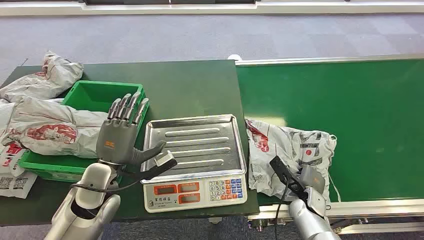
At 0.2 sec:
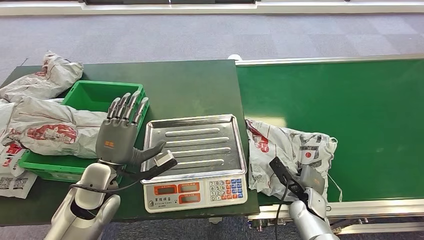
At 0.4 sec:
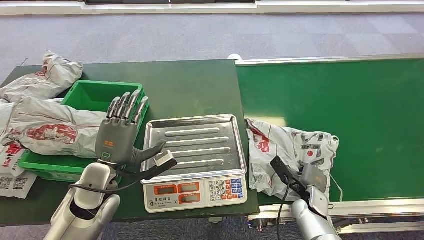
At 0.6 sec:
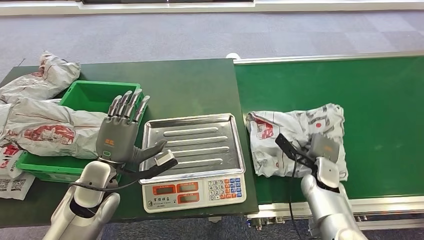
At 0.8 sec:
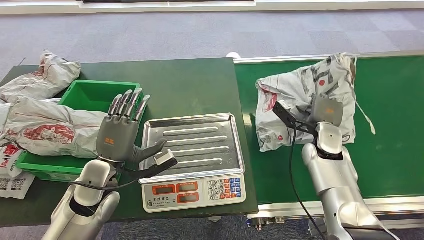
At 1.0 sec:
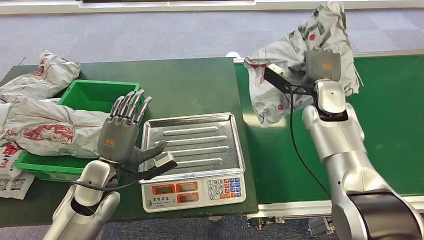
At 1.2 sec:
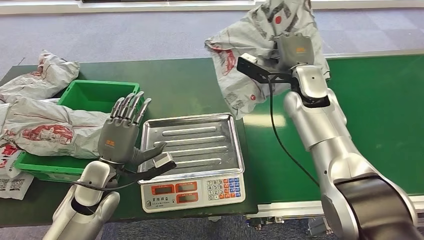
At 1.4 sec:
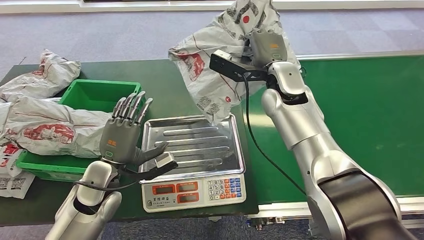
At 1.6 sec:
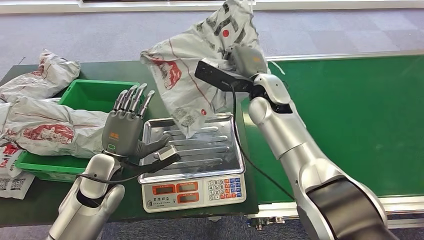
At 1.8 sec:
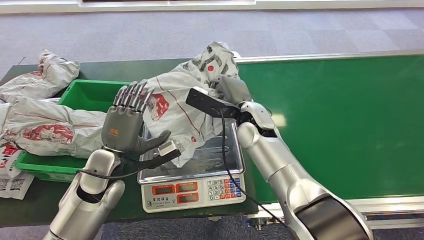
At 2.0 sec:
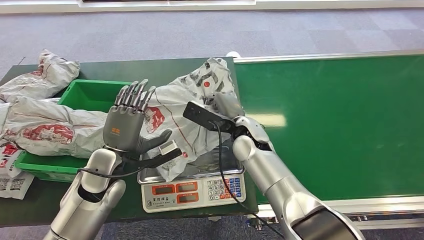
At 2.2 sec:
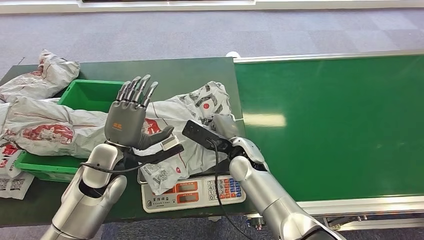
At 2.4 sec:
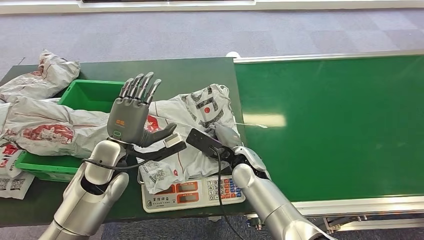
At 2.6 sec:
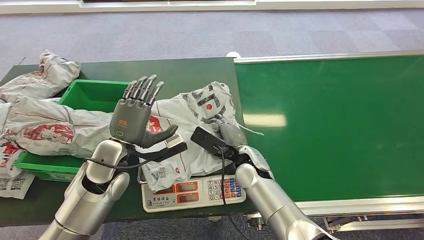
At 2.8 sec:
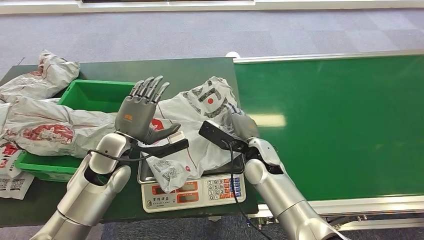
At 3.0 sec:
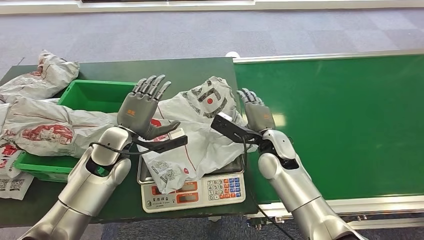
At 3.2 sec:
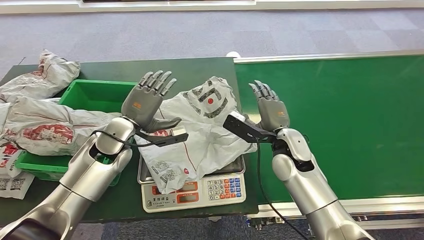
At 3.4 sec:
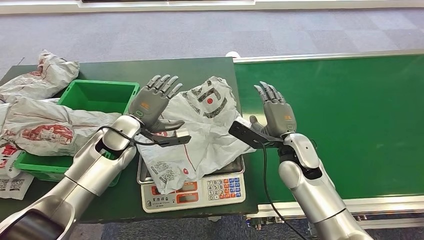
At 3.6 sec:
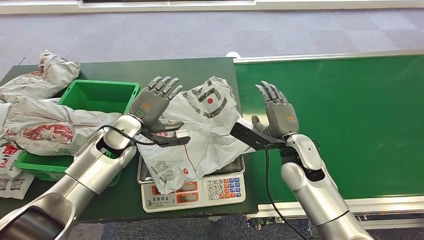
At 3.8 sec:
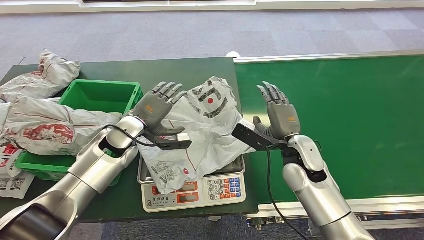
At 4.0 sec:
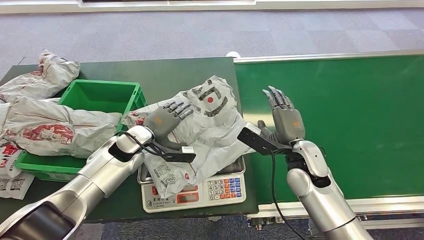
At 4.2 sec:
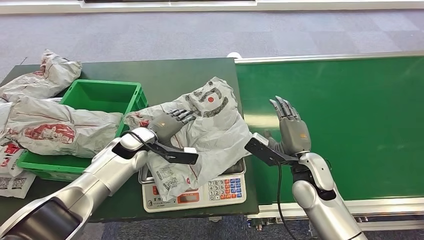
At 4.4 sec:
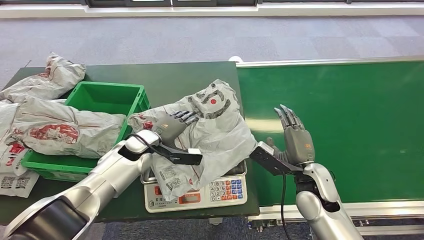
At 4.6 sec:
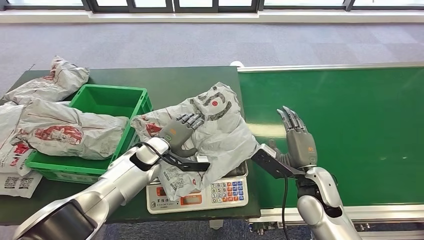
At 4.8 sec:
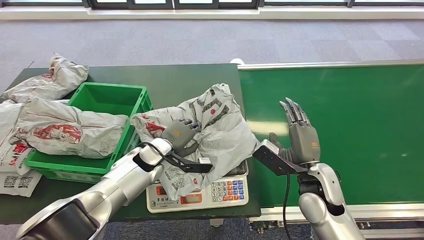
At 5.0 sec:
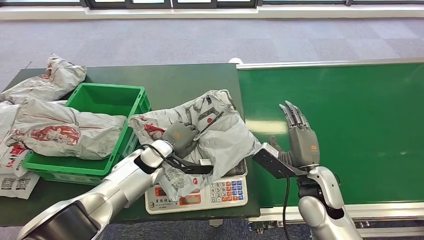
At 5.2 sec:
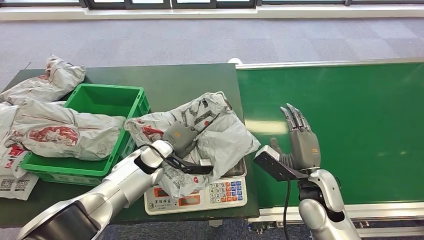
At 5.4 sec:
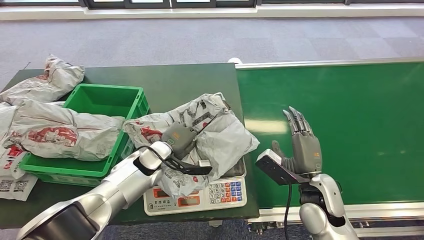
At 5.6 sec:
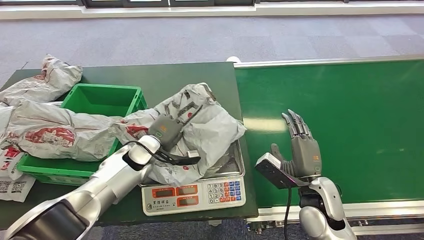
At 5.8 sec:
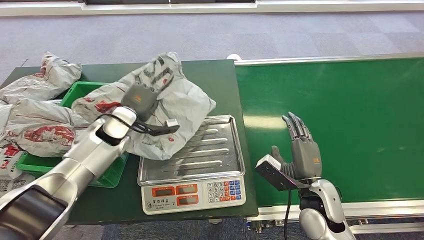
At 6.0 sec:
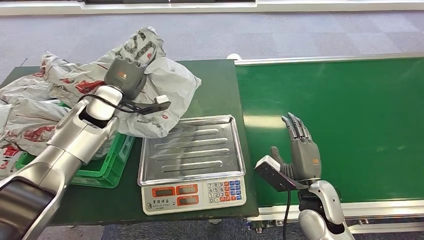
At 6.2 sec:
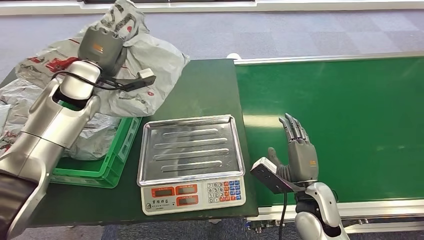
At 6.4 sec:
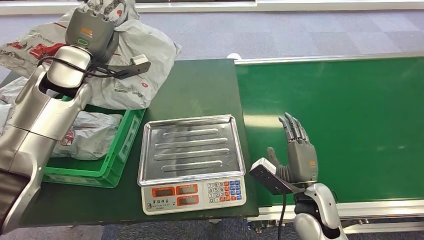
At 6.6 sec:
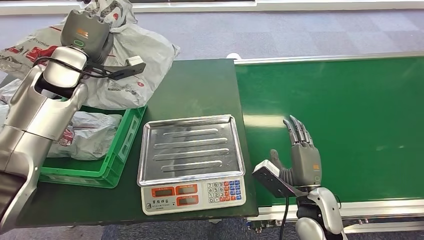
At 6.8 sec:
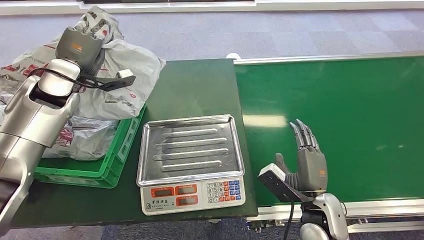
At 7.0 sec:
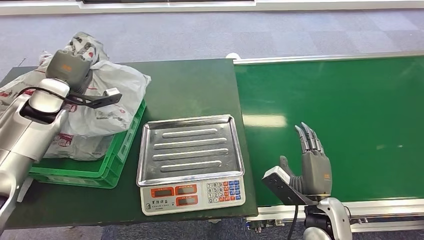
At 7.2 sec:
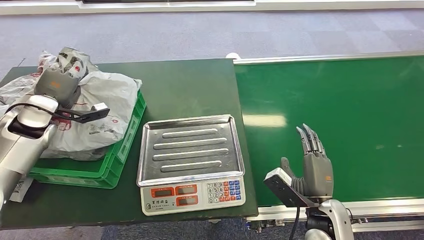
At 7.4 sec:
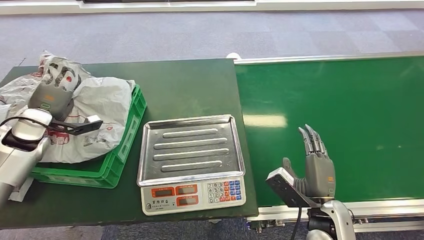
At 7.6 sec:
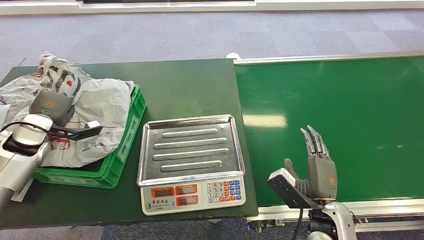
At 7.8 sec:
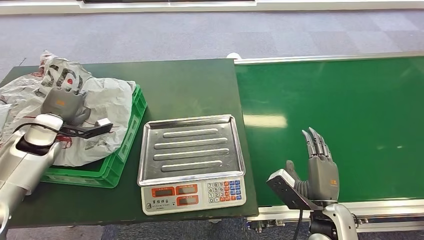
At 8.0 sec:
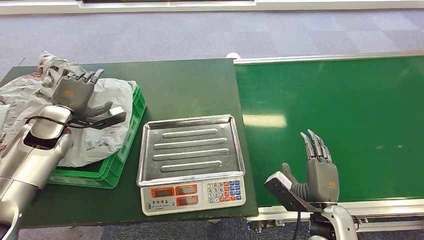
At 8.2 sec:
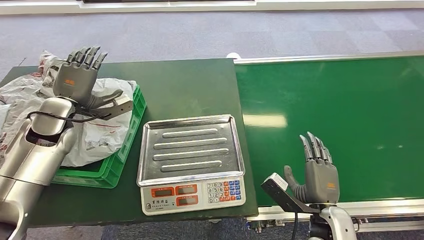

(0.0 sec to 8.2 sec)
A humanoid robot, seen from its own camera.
Step, 0.0 sec - 1.2 sec: Pick up the package from the conveyor belt.
Step, 1.6 sec - 3.4 sec: Place the package onto the inbound machine.
Step, 3.6 sec - 6.4 sec: Pick up the package from the inbound machine.
Step, 6.6 sec - 8.2 sec: Place the package into the parcel locker.

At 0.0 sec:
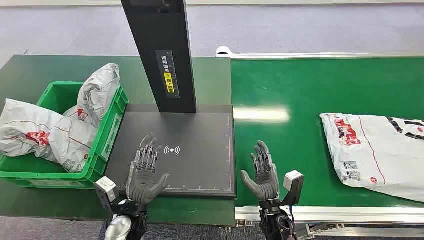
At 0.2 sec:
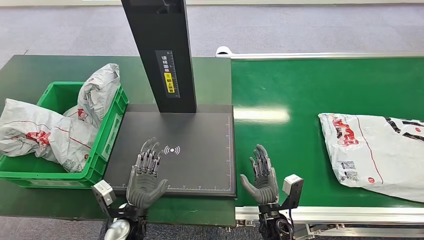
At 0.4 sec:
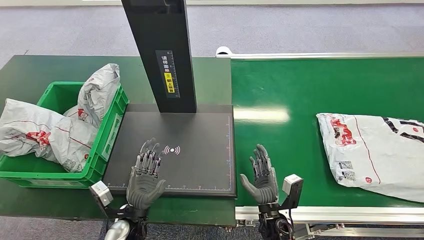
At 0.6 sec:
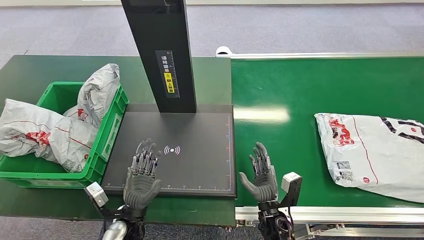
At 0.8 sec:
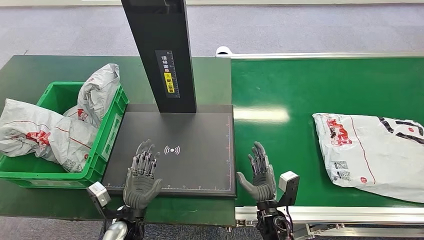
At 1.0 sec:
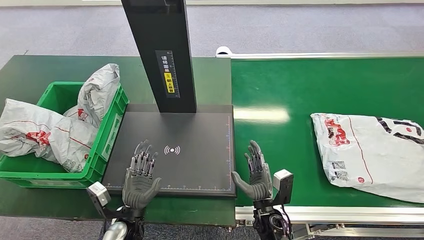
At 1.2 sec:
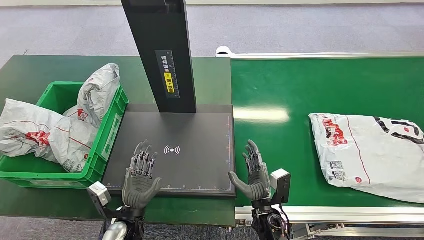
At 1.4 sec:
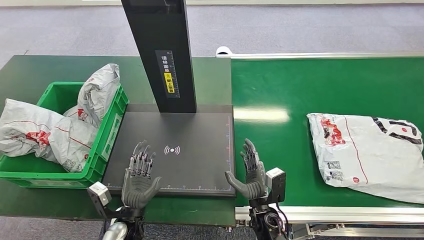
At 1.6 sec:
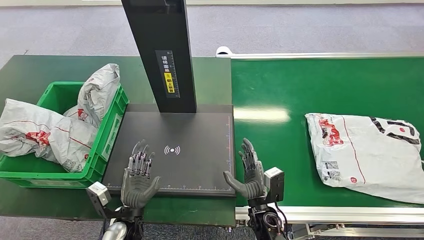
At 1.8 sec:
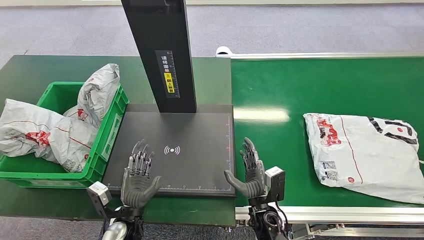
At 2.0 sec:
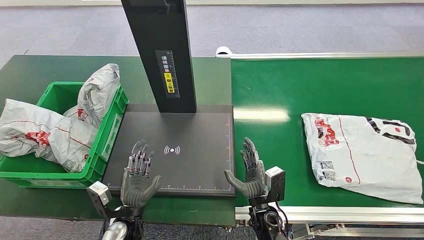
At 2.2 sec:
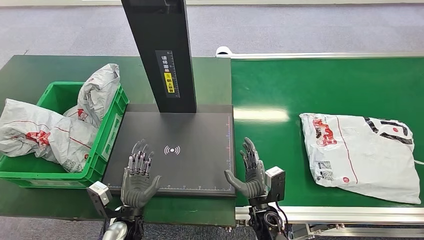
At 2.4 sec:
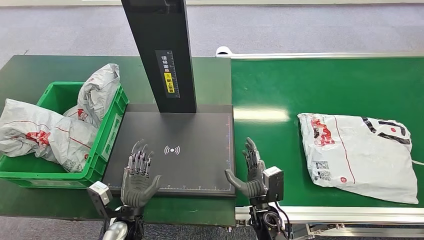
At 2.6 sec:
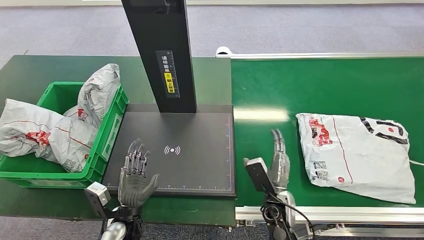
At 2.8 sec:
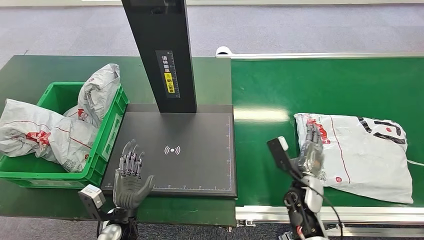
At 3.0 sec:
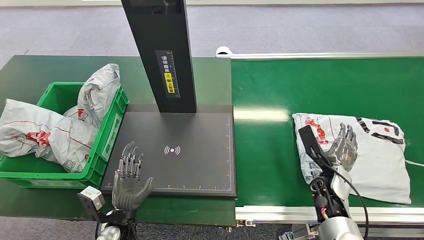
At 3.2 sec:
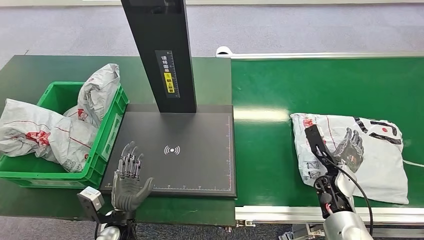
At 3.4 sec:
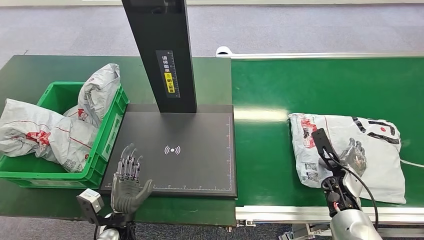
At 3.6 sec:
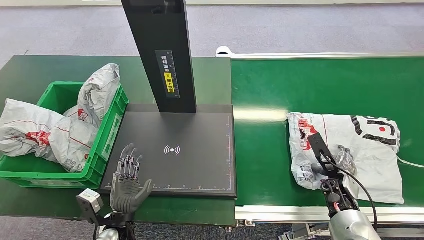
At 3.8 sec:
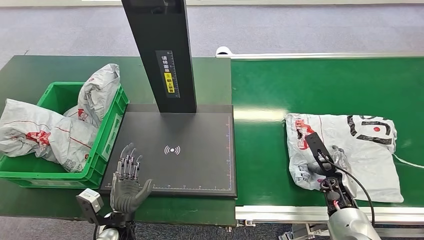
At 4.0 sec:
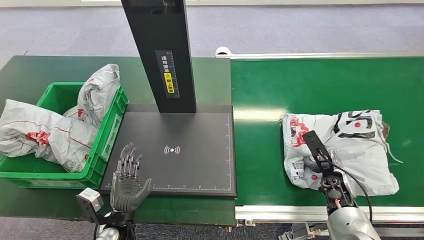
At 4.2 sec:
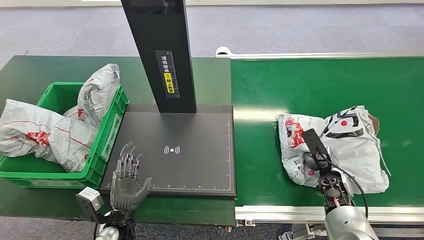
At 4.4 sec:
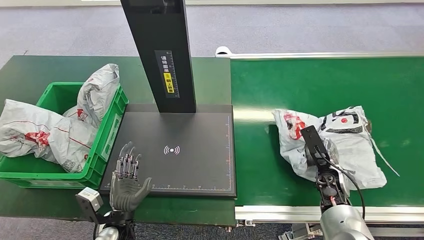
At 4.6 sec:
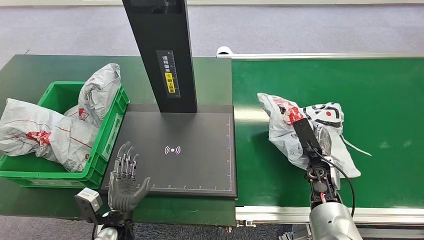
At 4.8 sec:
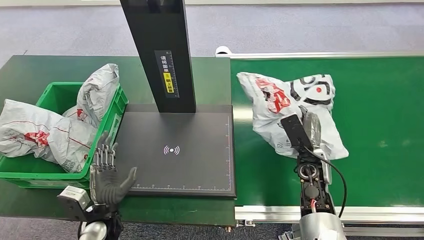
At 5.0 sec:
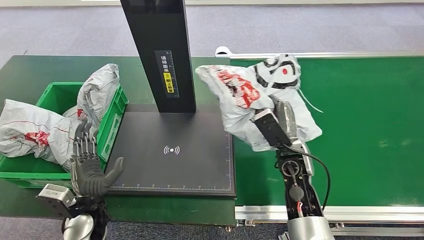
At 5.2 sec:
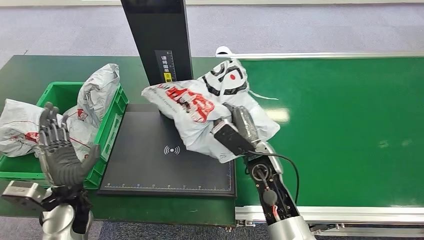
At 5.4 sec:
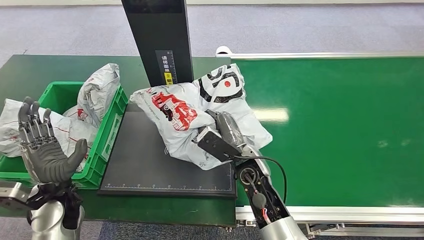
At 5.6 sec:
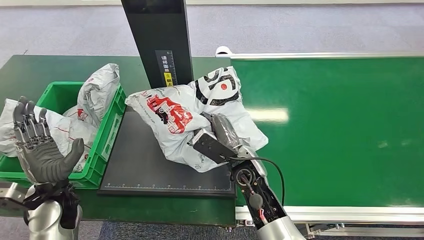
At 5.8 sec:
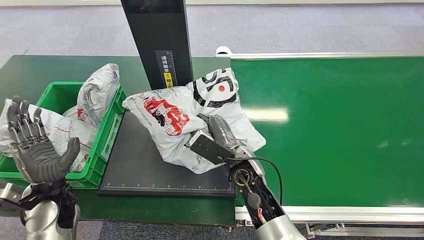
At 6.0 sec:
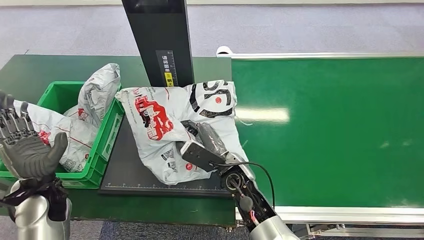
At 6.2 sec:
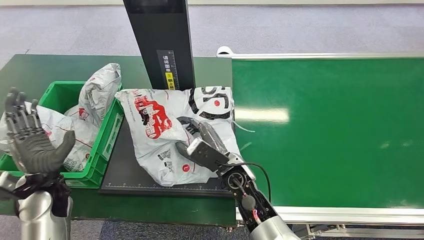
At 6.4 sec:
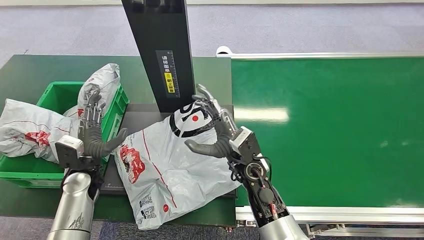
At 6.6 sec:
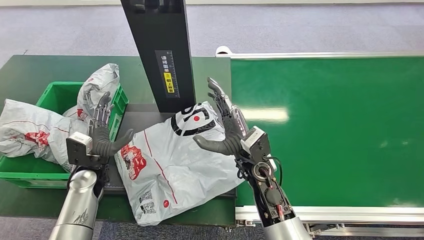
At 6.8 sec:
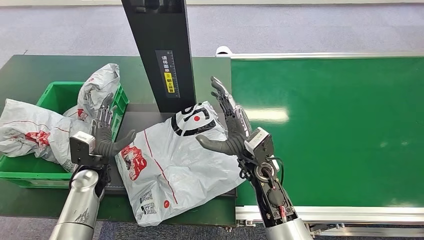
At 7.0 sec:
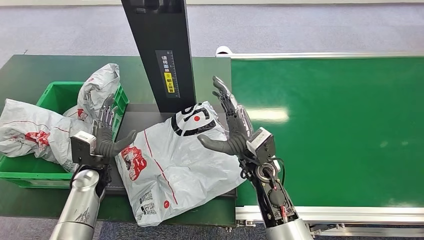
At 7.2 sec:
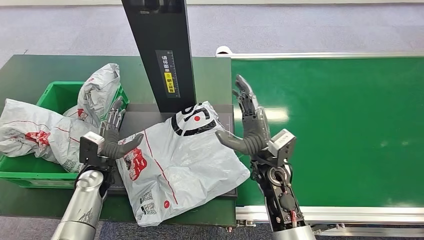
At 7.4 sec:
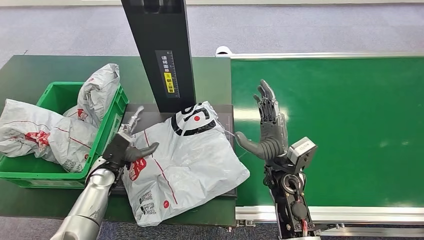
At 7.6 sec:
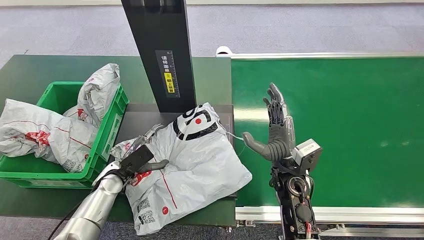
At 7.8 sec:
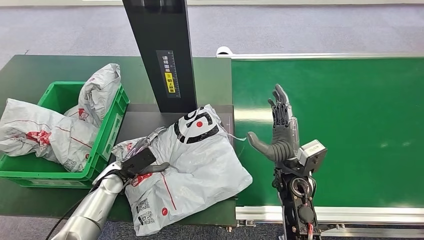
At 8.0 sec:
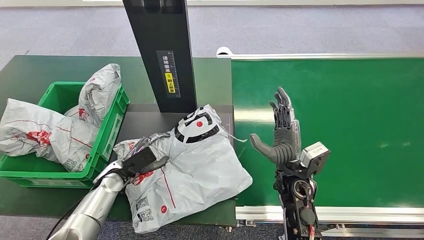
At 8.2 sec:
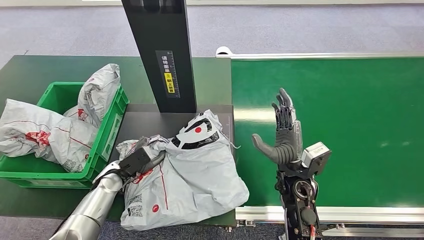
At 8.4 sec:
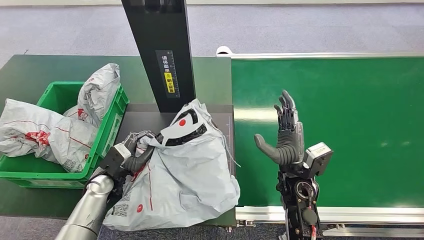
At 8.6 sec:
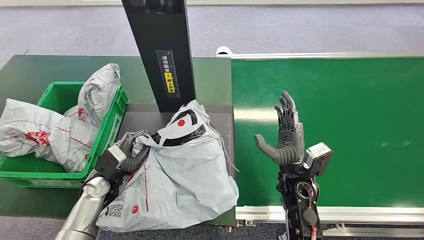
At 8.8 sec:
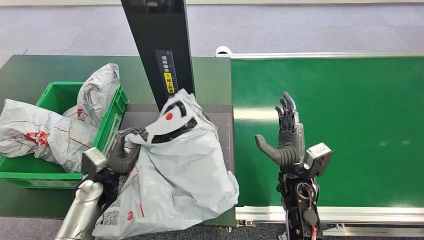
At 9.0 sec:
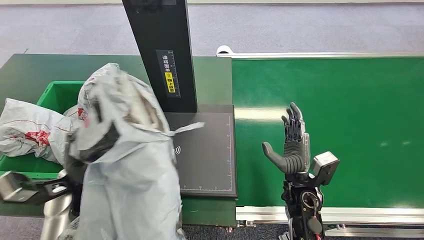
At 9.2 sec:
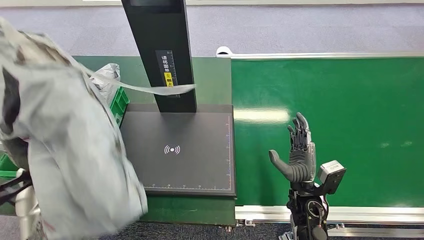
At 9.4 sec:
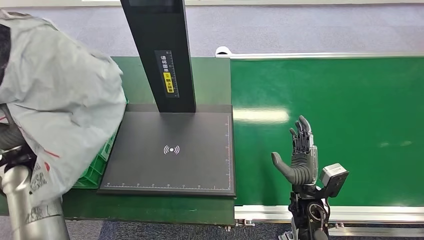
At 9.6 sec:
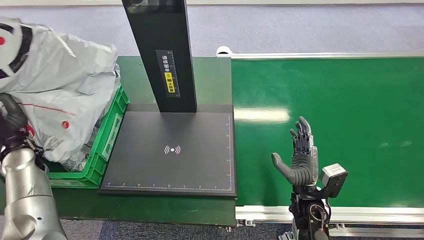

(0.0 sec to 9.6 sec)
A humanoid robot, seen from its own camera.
Step, 0.0 sec - 4.8 sec: Pick up the package from the conveyor belt.
Step, 5.0 sec - 7.0 sec: Place the package onto the inbound machine.
Step, 7.4 sec - 9.2 sec: Pick up the package from the inbound machine.
1.6 sec - 3.2 sec: The right hand travels to the right and forward by some 25 cm.
